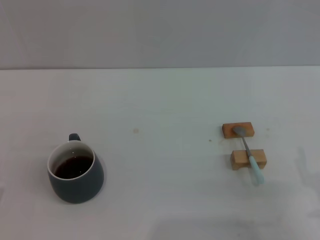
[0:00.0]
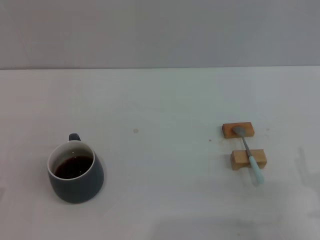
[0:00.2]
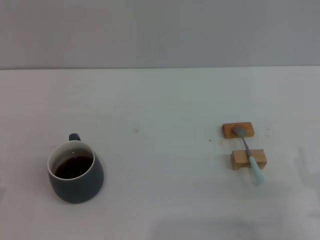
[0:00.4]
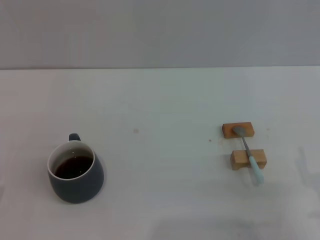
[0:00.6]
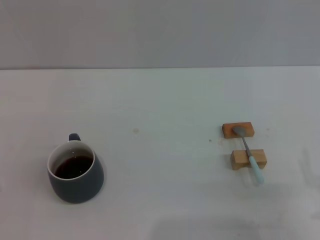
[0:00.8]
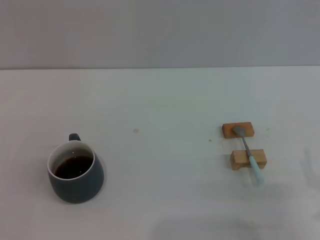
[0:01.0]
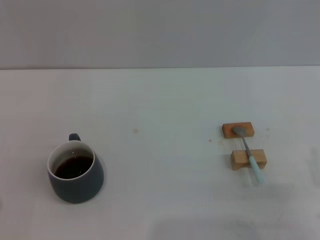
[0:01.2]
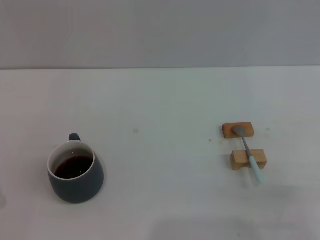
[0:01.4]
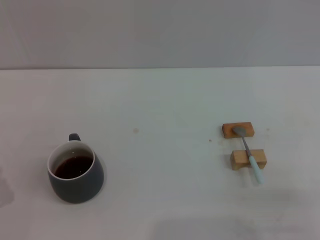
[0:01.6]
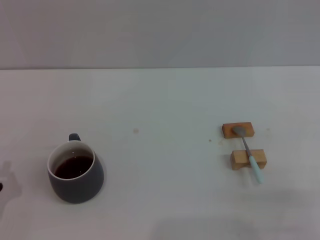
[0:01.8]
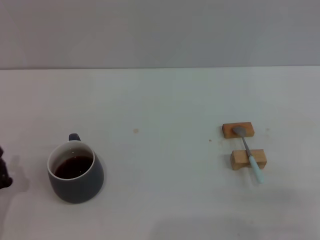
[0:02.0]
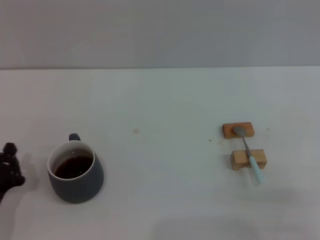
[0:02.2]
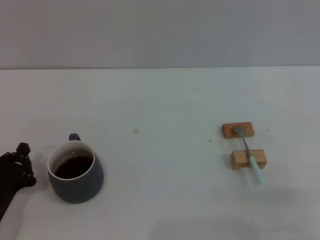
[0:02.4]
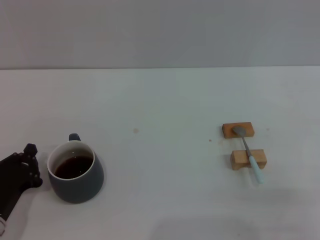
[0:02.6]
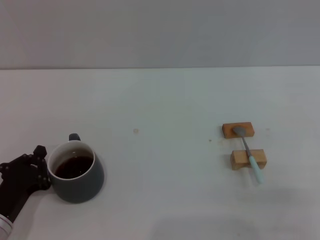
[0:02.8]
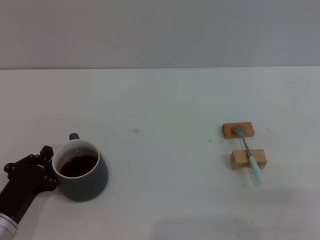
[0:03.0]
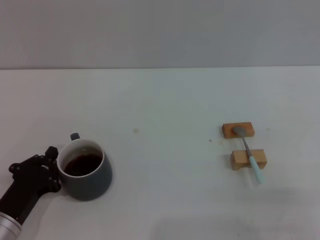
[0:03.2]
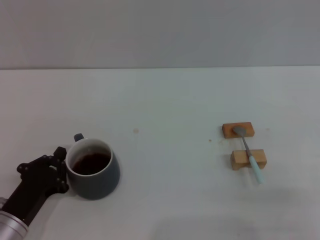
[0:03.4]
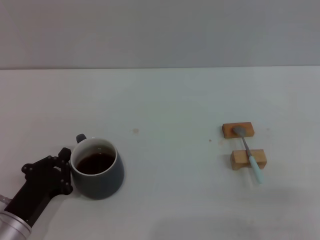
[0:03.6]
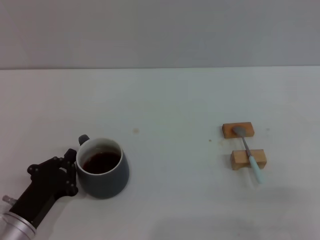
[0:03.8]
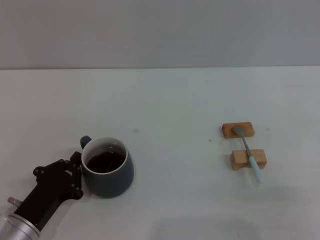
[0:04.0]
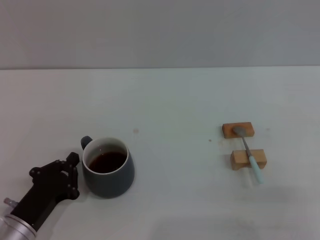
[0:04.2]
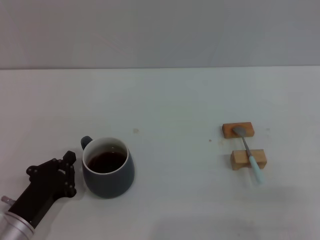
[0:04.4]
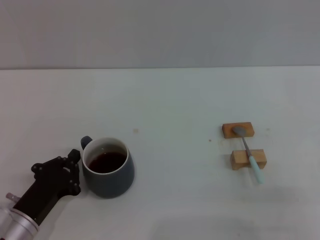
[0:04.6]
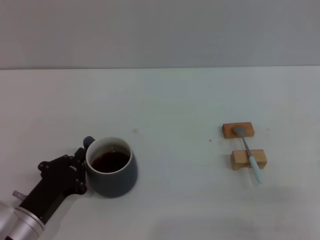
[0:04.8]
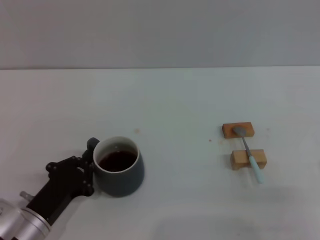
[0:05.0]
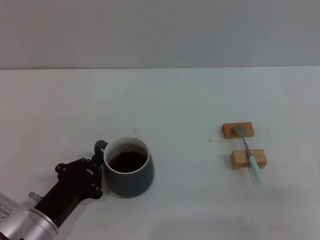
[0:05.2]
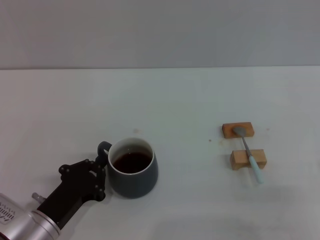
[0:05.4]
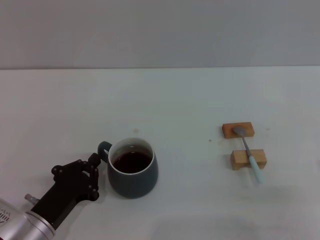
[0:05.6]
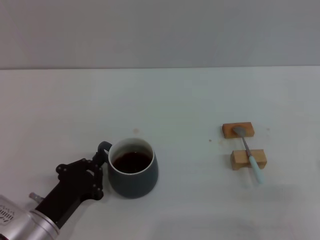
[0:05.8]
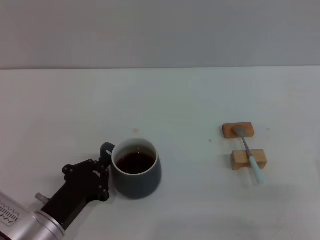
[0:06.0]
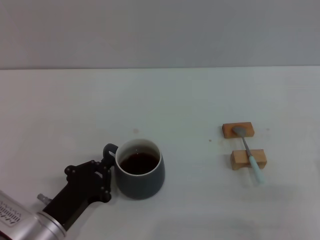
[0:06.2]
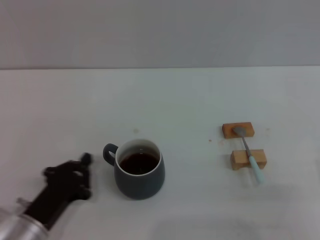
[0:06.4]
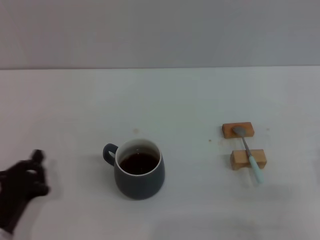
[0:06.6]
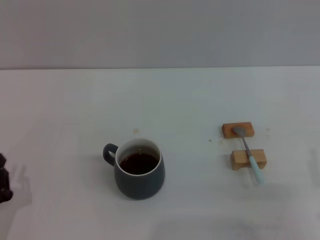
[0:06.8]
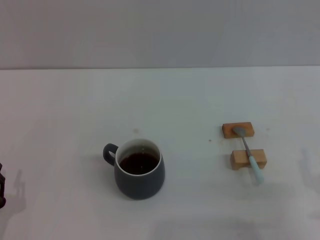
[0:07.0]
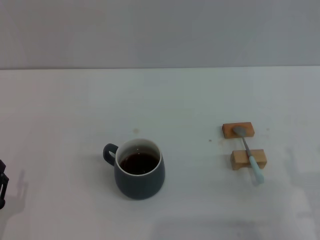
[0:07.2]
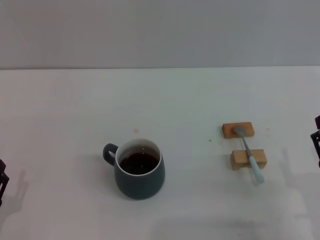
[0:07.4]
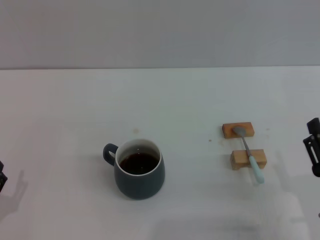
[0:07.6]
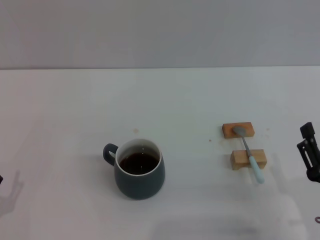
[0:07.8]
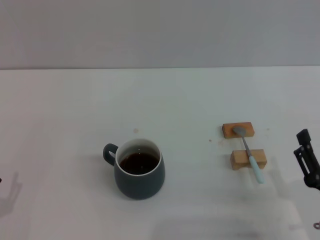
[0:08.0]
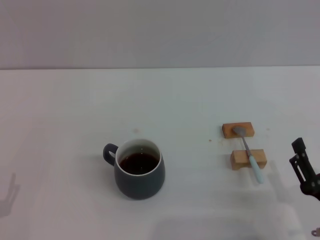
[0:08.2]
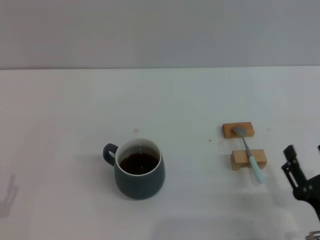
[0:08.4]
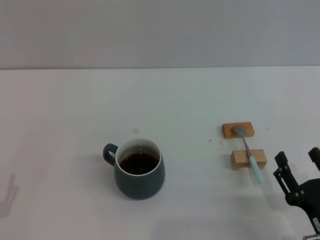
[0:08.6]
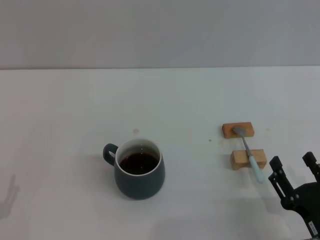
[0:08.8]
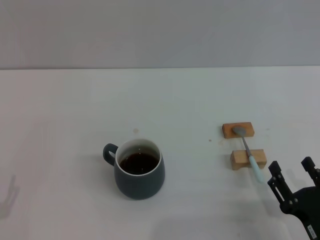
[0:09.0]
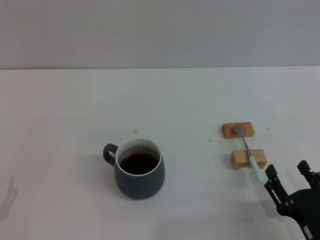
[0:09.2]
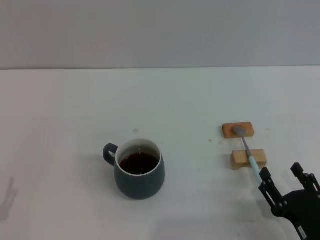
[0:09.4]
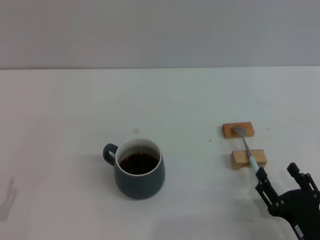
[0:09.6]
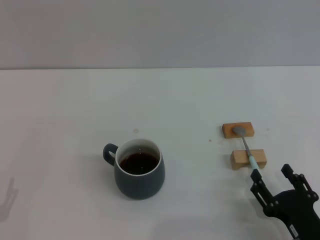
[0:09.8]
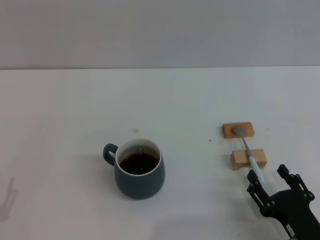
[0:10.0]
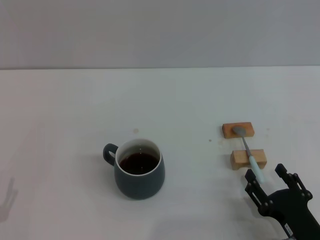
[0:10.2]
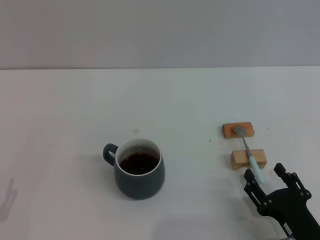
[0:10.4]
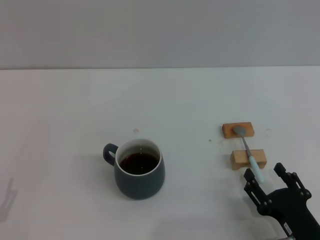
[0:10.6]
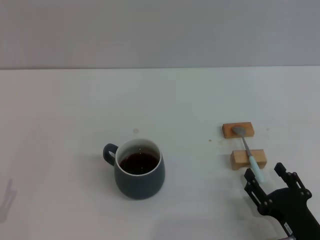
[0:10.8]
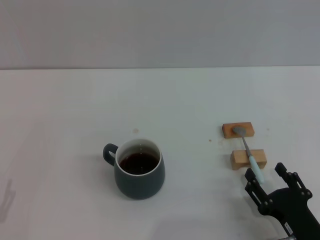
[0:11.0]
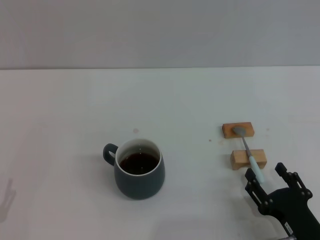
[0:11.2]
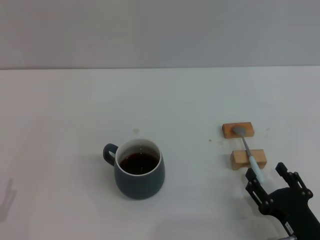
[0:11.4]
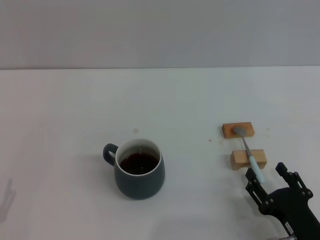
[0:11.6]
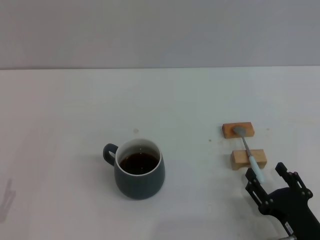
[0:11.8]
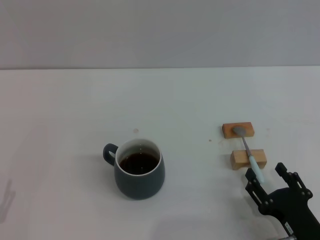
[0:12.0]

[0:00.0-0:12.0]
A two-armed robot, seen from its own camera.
Task of the whole recording: Move the grey cup to the center, lift the blue spoon, stir it three times in the cup, and put the spoon into the cup.
Step, 0:00.0 to 0:06.4: Move the cup with coffee to the center of view with the left gripper.
0:01.6 to 0:03.0: The left gripper shifts by roughly 5 cm.
0:03.0 to 0:06.0: The grippers stay close to where they were, moving slightly.
0:06.0 to 0:07.6: The left gripper moves to the left and backward, roughly 10 cm, and opens its fingers.
0:07.6 to 0:09.0: The grippers stay close to where they were, moving slightly.
0:09.0 to 0:10.4: The grippers make only small movements.
0:10.4 to 0:12.0: Neither gripper changes place.

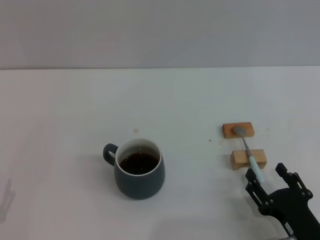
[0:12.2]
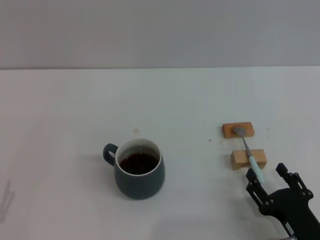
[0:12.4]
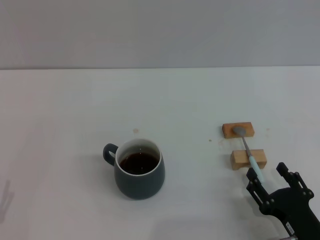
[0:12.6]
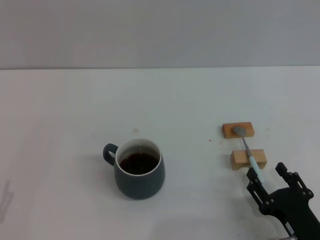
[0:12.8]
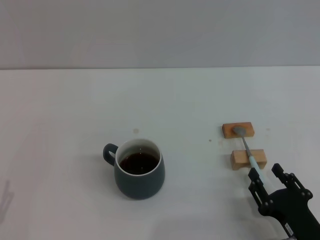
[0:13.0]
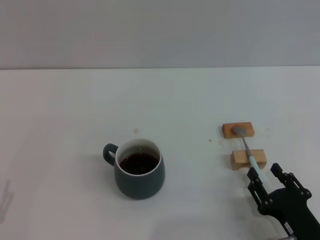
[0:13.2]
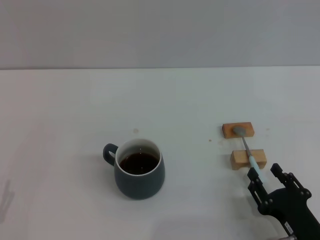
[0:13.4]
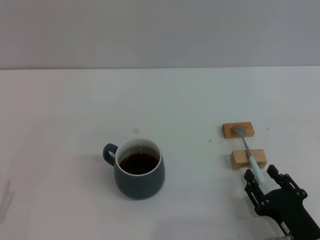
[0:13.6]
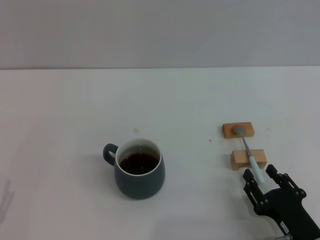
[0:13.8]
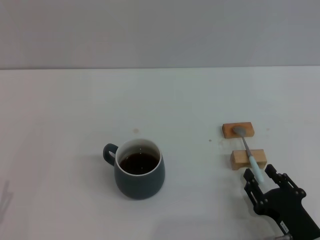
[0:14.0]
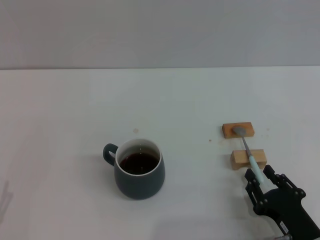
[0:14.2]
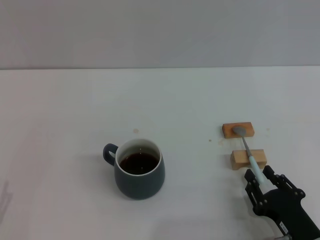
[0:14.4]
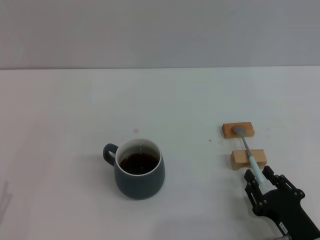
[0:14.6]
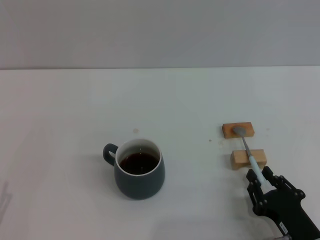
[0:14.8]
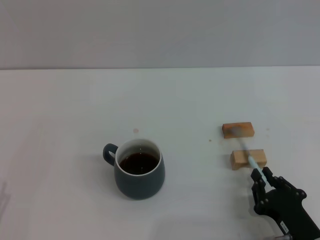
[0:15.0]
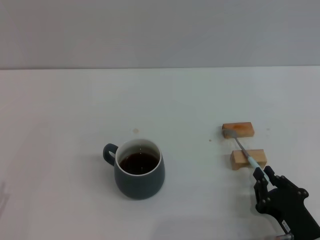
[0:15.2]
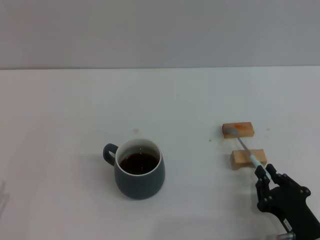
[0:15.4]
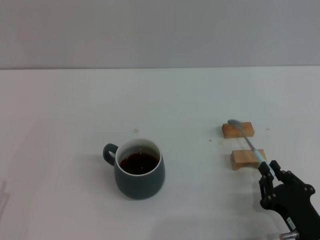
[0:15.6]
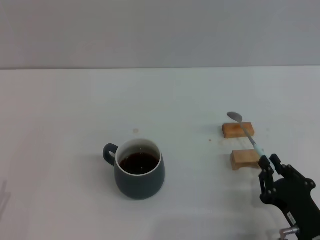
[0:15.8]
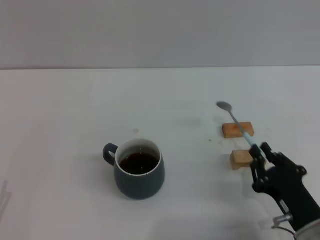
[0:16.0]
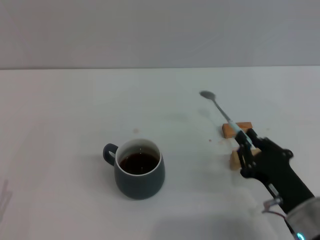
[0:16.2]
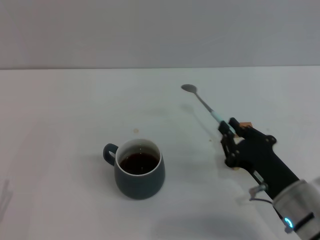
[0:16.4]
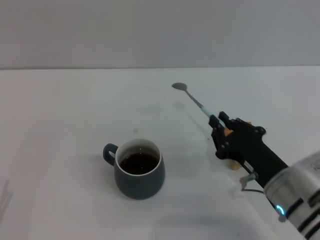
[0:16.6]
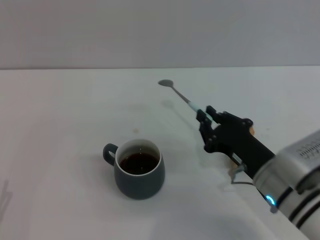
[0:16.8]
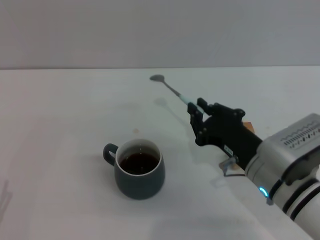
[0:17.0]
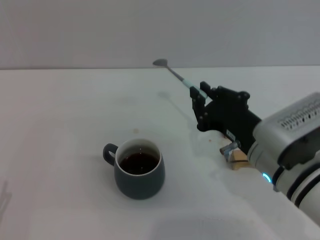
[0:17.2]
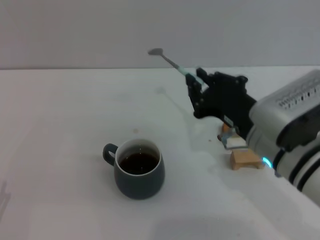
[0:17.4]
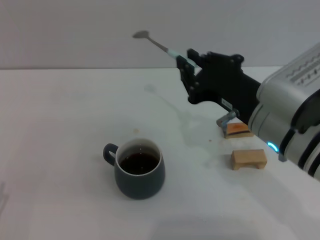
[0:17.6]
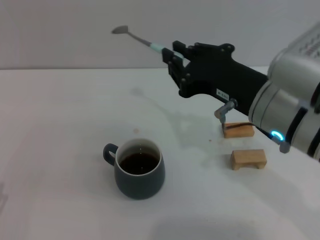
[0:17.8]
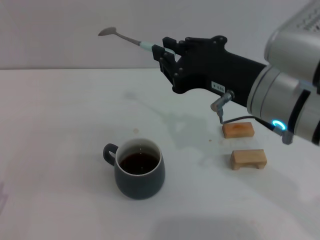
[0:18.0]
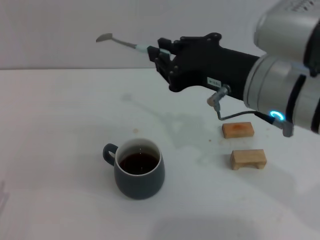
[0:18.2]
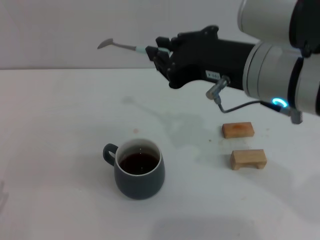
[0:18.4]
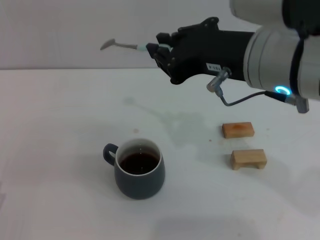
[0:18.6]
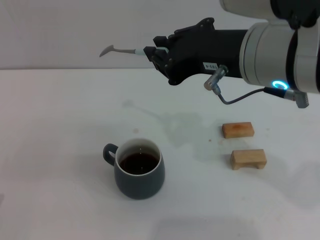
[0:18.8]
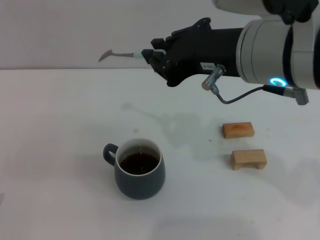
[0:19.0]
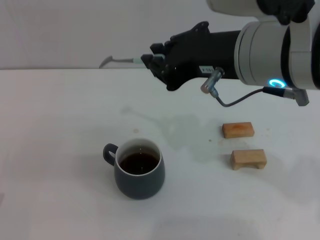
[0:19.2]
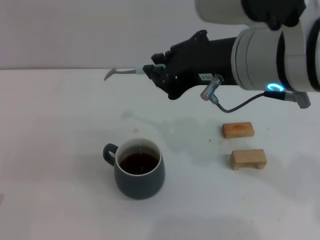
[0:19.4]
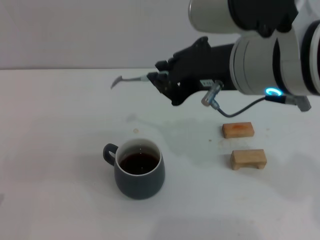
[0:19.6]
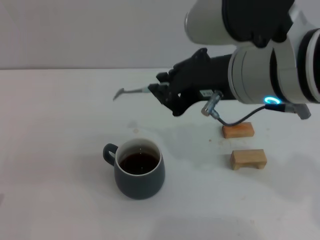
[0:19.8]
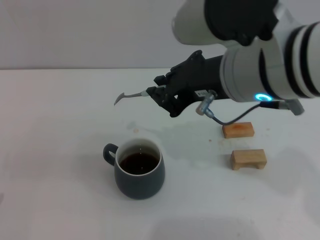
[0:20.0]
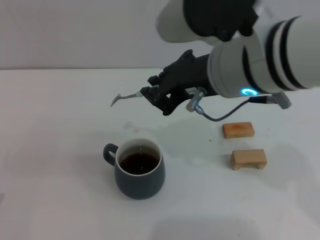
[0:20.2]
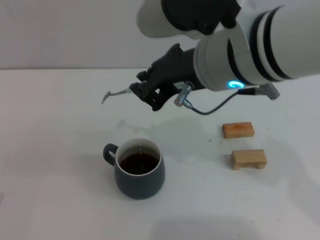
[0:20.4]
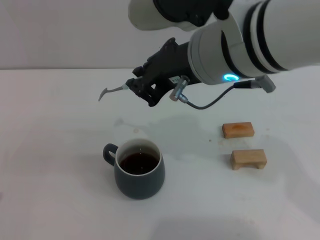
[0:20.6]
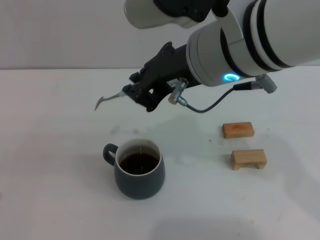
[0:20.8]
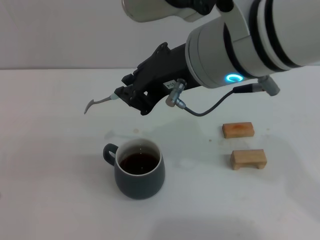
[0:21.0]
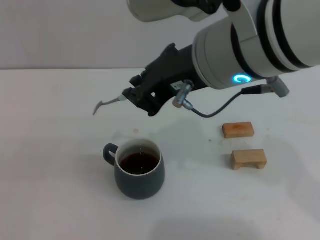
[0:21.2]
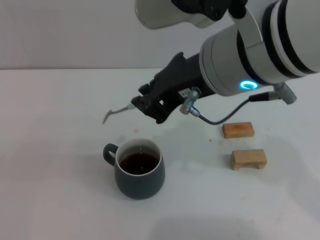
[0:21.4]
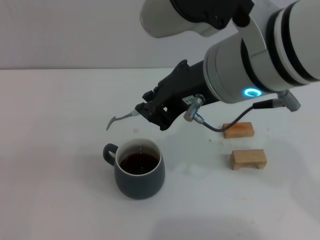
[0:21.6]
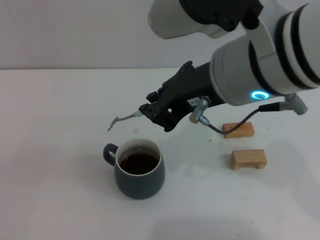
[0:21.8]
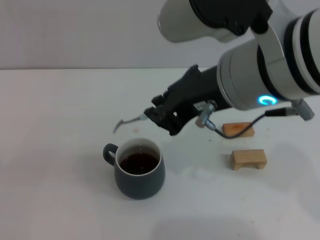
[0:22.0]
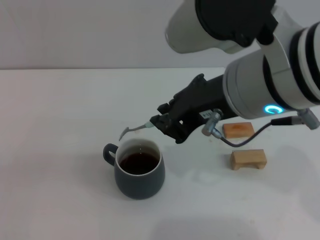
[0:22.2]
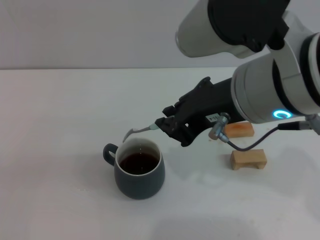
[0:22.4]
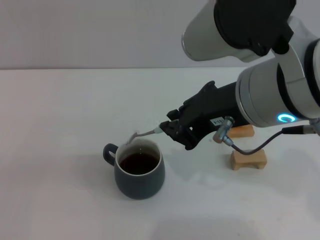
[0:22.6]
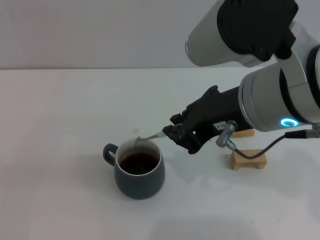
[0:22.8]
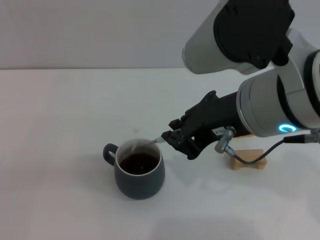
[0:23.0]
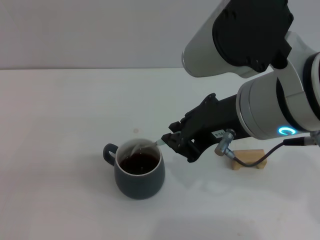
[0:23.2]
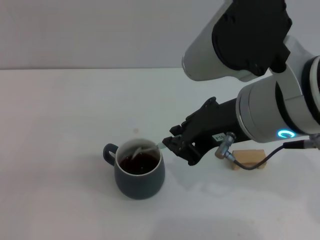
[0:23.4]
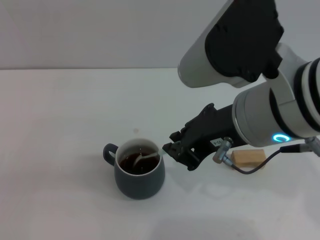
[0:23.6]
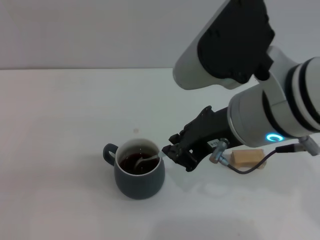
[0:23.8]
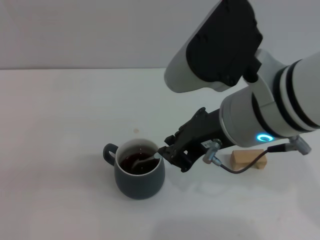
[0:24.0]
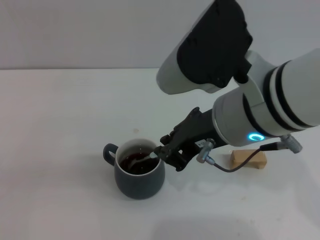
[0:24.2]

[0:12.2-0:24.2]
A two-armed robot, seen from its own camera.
Task of the whole recording: Move the grey cup to the center, lift the blue spoon, stir it three times in the cup, and put the spoon into the cup.
Step, 0:12.2 to 0:16.2: Pick up the spoon with the right gripper.
0:12.2 to 0:13.8: The right gripper closes its fingers.
0:13.8 to 0:15.2: The right gripper closes up.
0:15.2 to 0:16.6: The right gripper shifts about 10 cm forward and upward.
0:16.6 to 0:18.2: The right gripper heads upward, covering some 20 cm.
0:19.8 to 0:21.2: The grippers move only a little.
